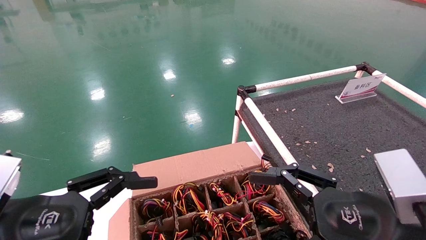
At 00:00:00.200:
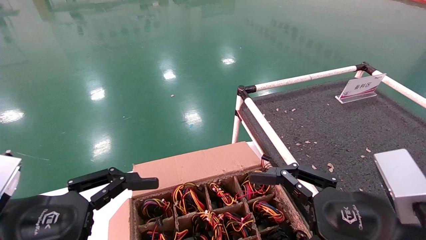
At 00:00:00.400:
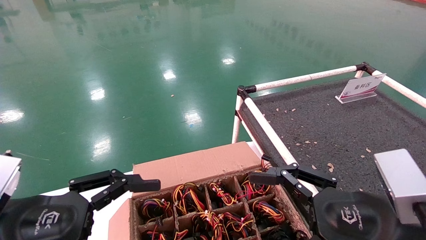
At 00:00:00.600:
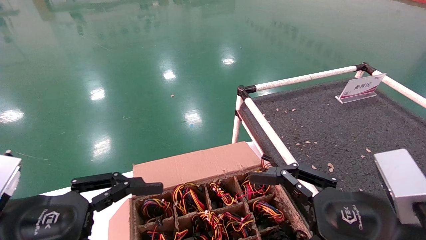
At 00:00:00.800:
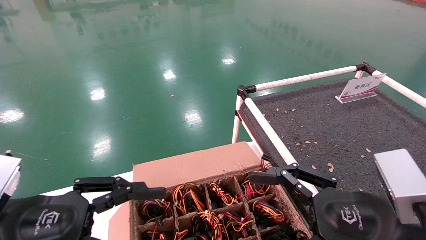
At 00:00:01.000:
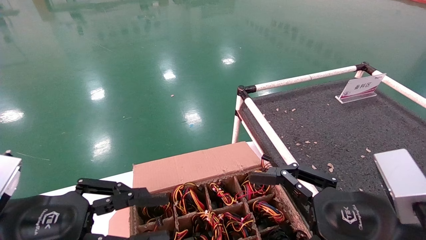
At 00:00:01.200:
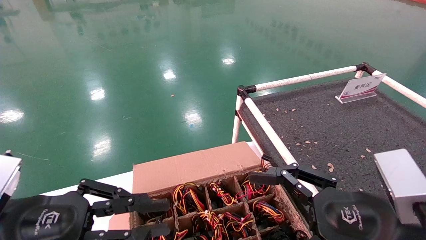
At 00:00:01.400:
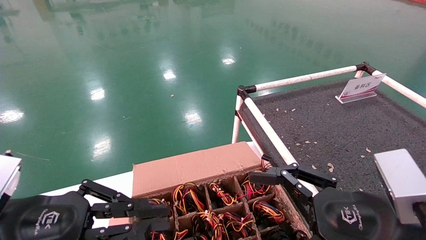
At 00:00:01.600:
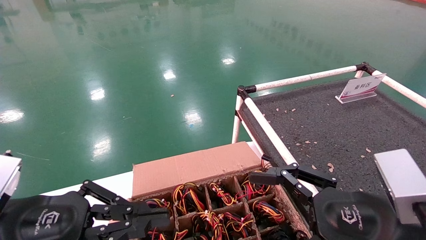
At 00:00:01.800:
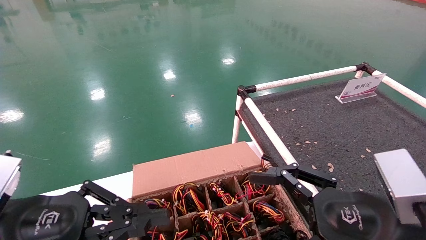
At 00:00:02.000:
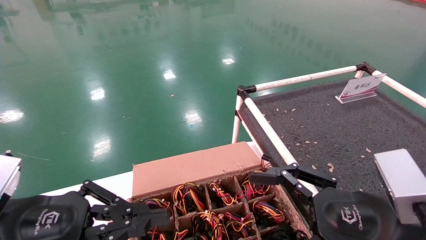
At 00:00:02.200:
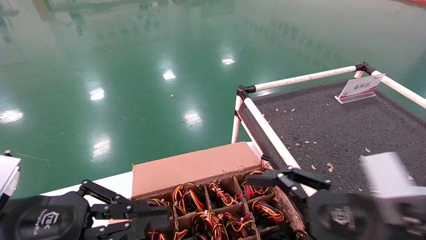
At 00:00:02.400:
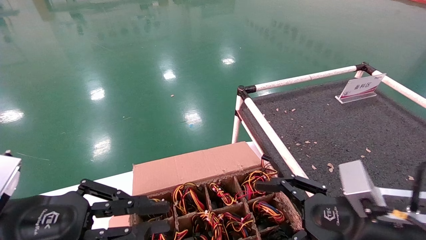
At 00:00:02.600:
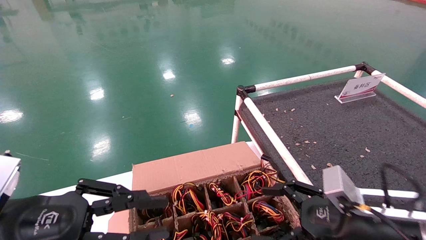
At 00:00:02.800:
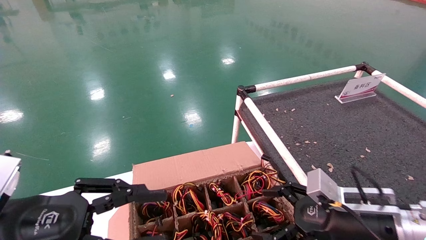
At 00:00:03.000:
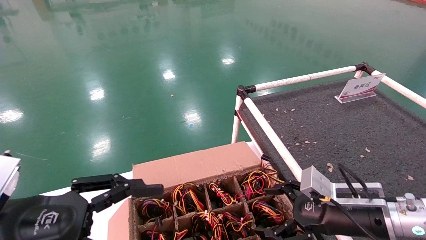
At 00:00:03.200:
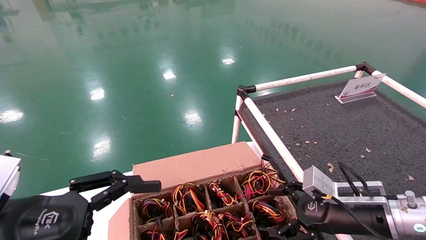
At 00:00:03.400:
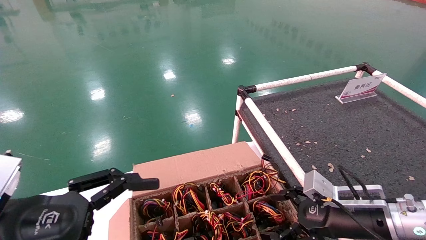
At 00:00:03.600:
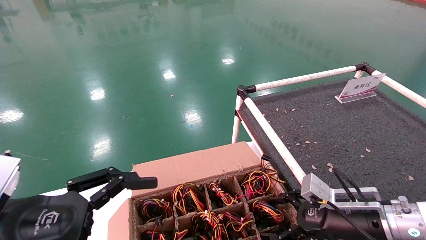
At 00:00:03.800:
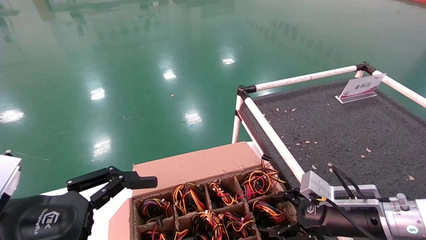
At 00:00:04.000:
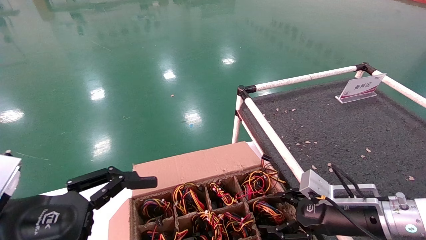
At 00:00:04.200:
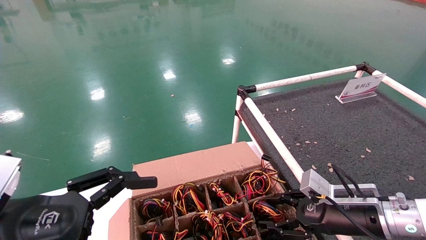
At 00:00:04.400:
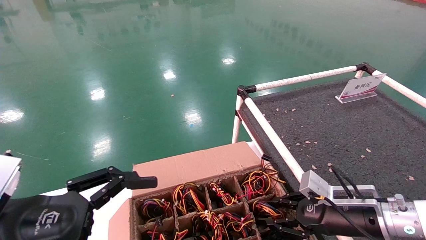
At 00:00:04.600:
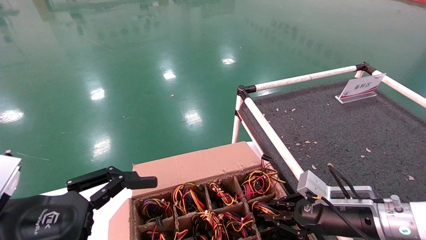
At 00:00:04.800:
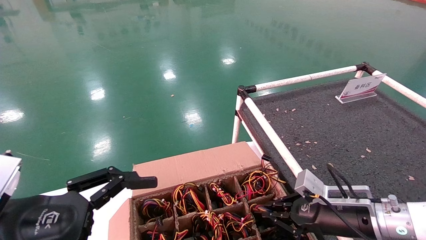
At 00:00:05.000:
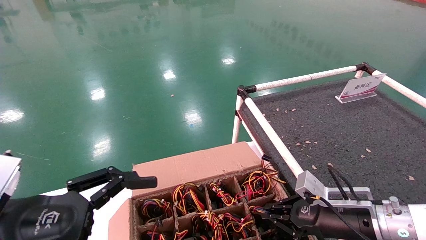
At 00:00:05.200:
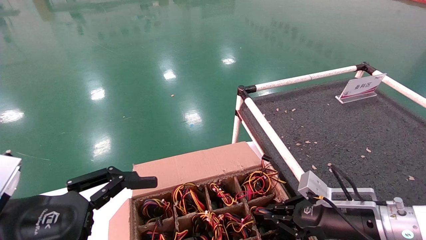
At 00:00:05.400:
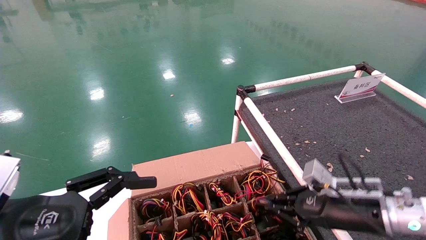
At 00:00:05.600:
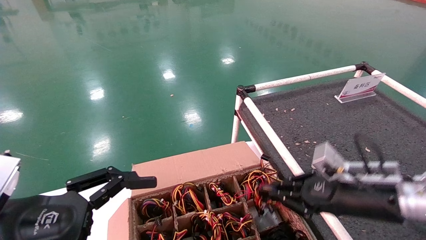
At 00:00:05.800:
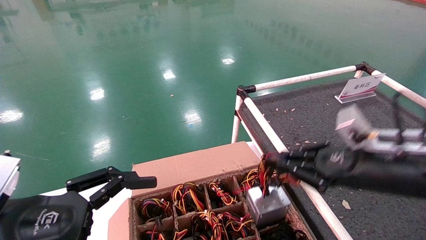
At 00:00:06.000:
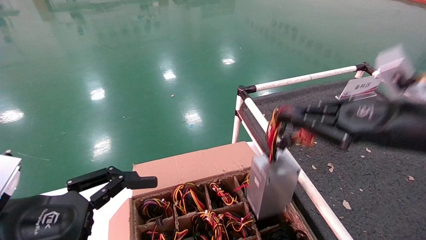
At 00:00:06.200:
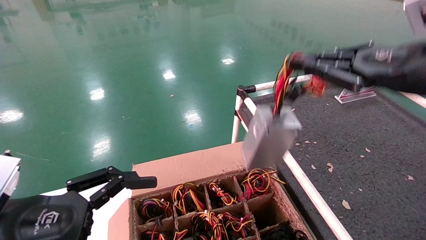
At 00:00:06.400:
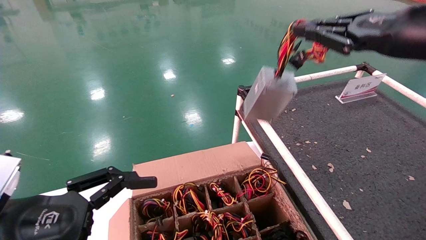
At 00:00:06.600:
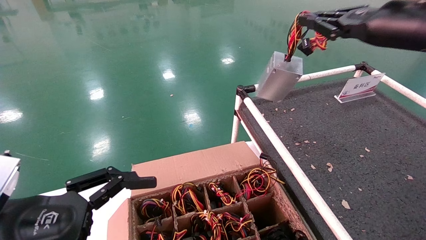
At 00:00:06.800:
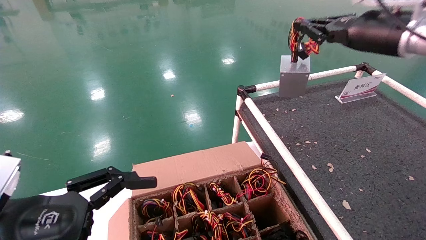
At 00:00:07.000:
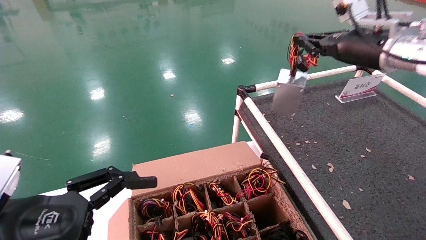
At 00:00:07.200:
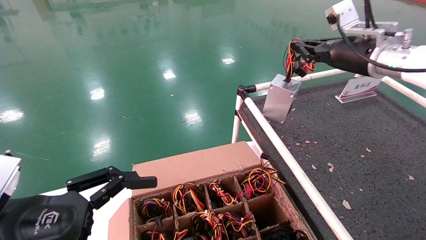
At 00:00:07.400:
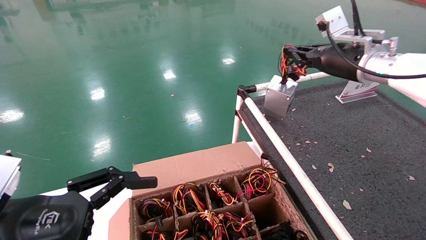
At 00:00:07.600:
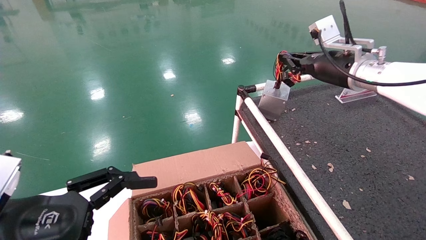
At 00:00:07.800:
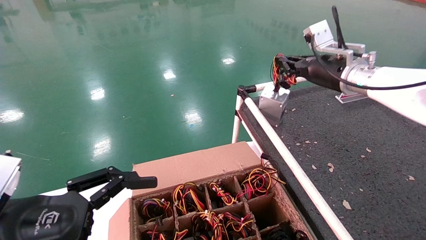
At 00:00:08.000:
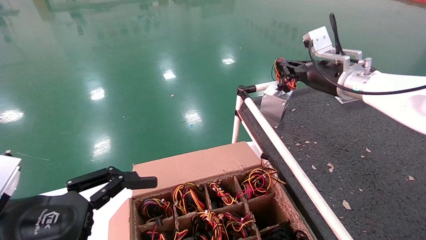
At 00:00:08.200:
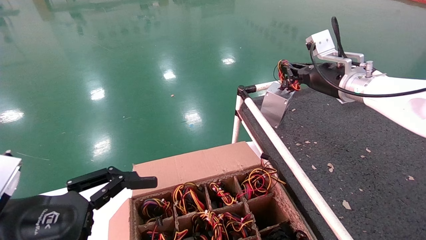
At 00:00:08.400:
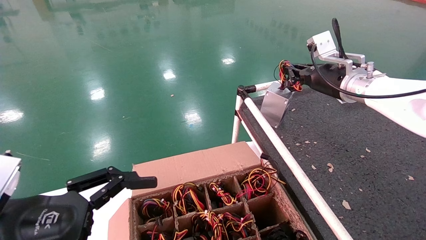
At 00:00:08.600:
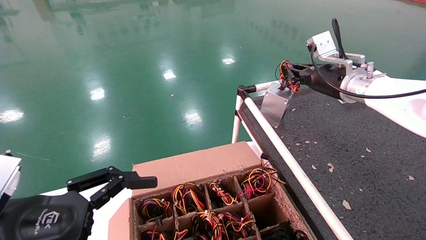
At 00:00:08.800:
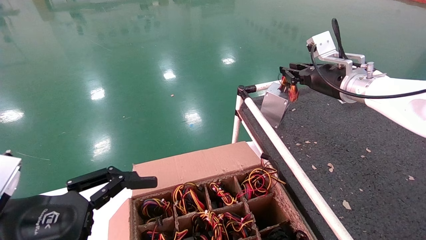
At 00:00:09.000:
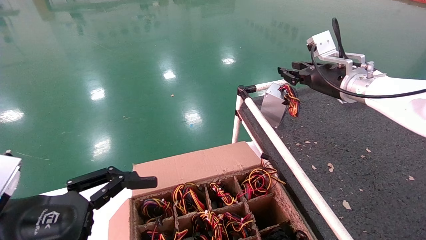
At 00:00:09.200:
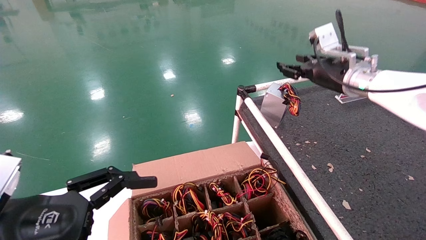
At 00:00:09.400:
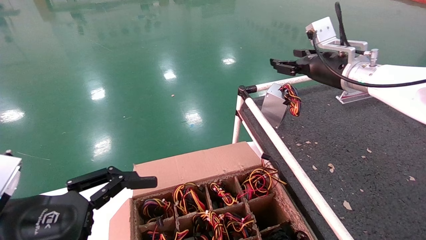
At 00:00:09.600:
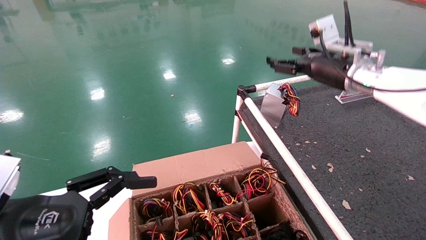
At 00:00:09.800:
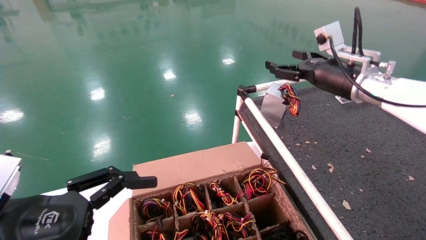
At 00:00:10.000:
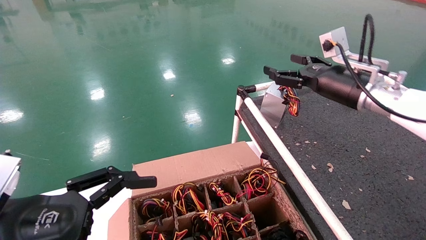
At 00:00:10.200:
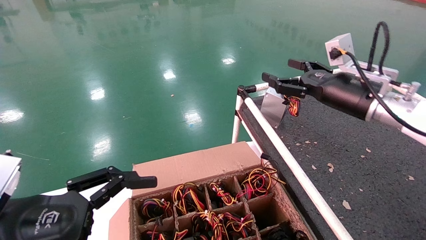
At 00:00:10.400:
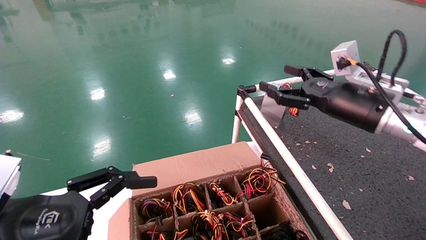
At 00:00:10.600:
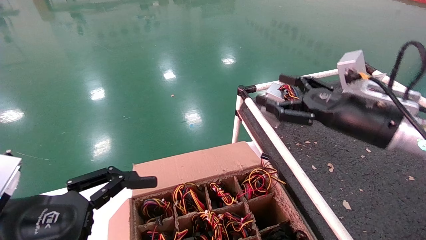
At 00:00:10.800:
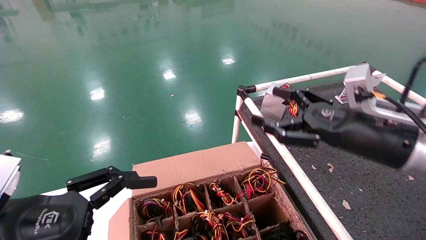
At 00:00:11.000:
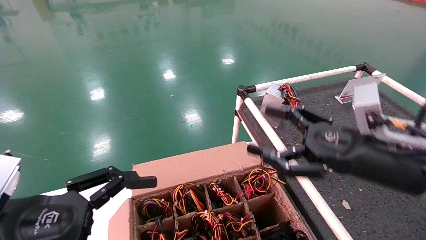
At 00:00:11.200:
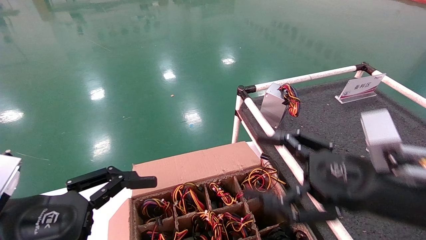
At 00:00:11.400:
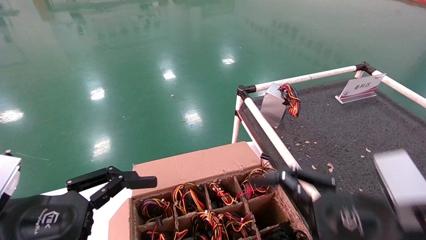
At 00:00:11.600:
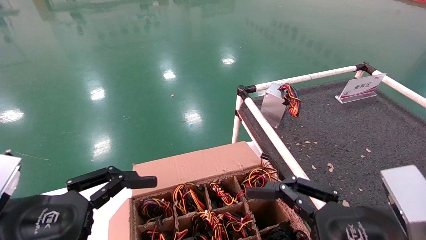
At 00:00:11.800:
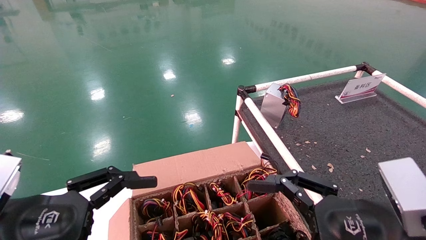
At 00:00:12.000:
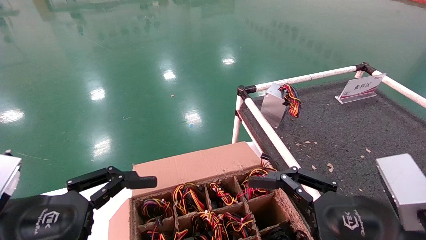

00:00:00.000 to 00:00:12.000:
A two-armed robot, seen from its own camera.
Step, 00:00:02.600 to 00:00:04.800: Grab and lift the power supply from the large box.
Step, 00:00:05.000 to 00:00:09.000: Place the power supply on the operating table.
00:00:00.000 to 00:00:01.600: The left gripper closes its fingers.
00:00:01.600 to 00:00:03.000: The left gripper opens. Meanwhile the right gripper is displaced forward and downward by about 15 cm.
00:00:03.000 to 00:00:04.400: The right gripper closes; the left gripper opens.
00:00:04.400 to 00:00:06.000: The right gripper is displaced upward by some 20 cm, and closes up.
00:00:06.000 to 00:00:07.600: The right gripper moves forward, some 15 cm.
00:00:07.600 to 00:00:09.000: There are only small adjustments of the grippers.
00:00:09.000 to 00:00:10.400: The right gripper travels backward and downward by roughly 10 cm, and opens its fingers.
00:00:10.400 to 00:00:12.000: The right gripper travels backward and downward by about 20 cm.

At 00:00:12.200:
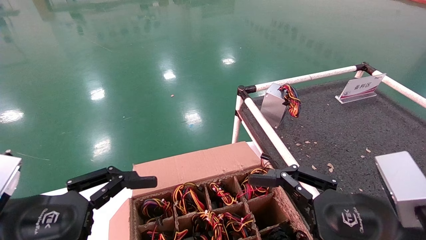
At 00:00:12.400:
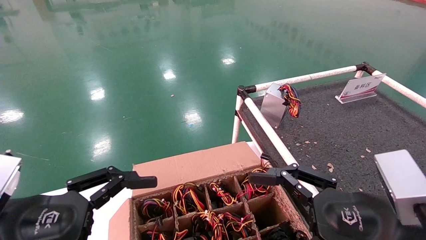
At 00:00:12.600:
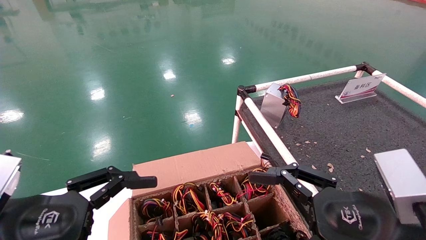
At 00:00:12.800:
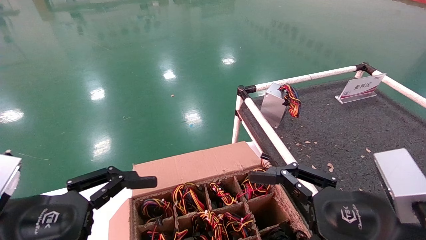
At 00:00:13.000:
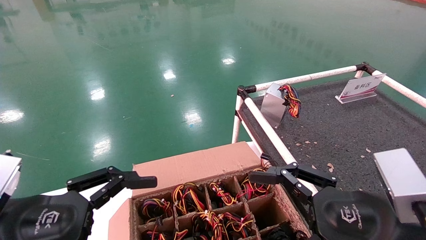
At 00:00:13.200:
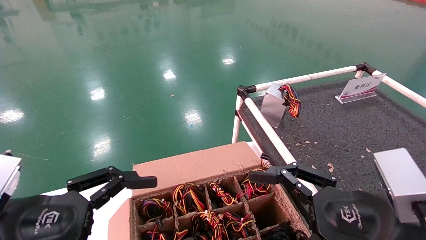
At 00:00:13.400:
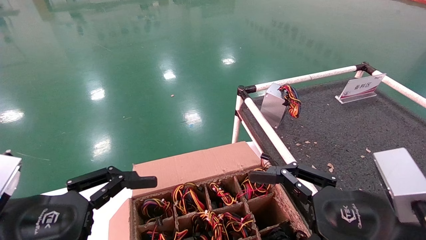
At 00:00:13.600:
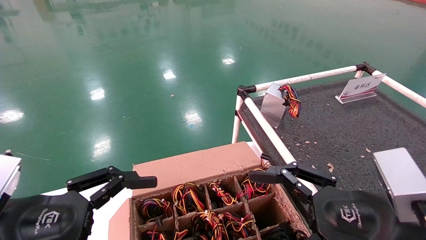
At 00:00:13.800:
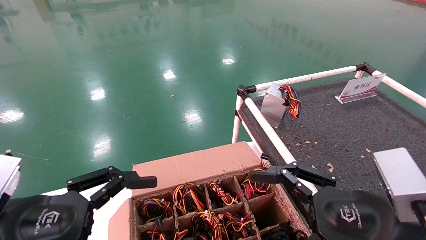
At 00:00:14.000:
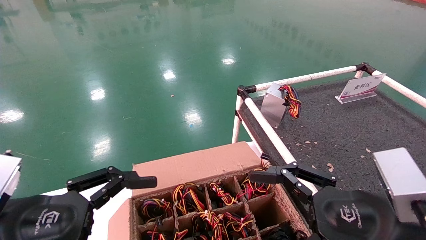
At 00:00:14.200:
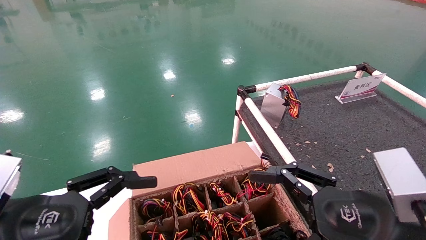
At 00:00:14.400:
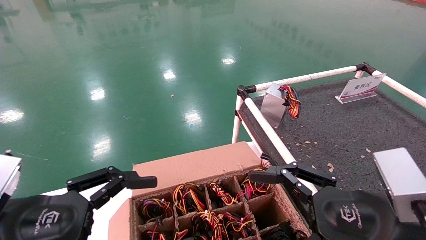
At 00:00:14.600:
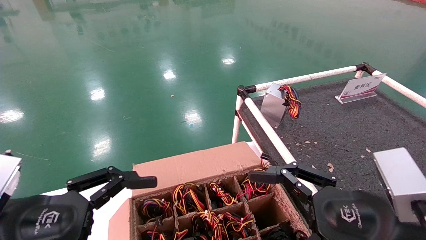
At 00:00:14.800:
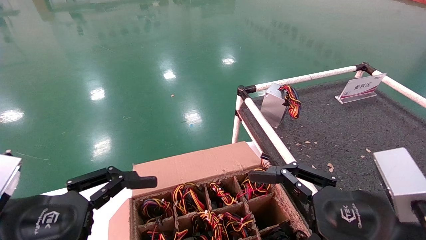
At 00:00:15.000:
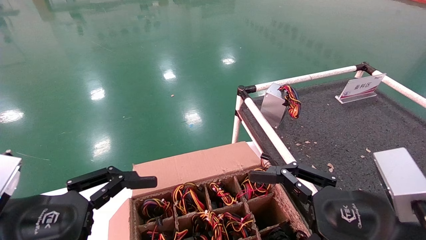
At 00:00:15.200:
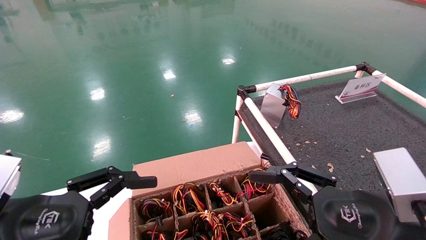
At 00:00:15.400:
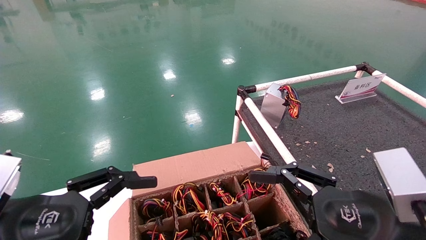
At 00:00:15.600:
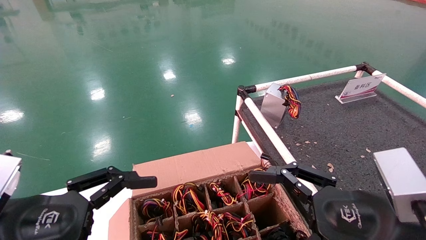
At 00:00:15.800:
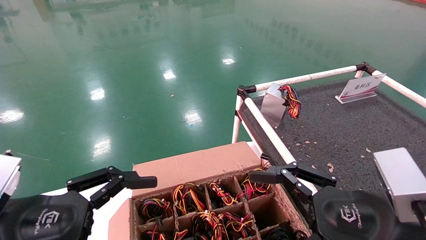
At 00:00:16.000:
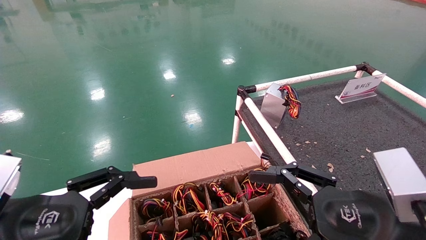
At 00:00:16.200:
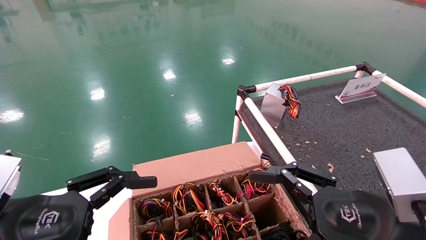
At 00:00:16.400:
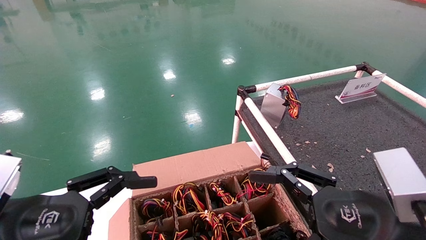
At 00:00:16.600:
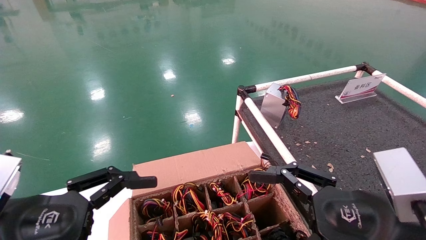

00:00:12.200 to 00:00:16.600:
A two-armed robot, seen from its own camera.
00:00:12.200 to 00:00:16.600: The two grippers keep their place.
